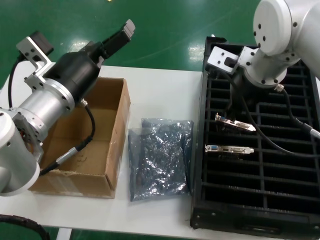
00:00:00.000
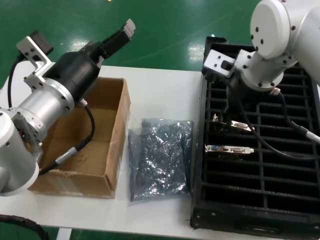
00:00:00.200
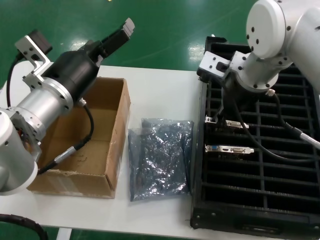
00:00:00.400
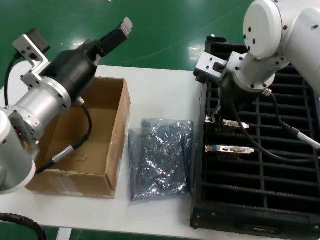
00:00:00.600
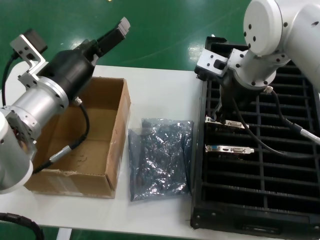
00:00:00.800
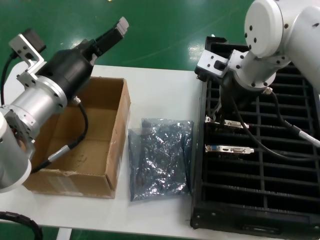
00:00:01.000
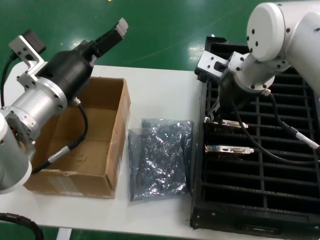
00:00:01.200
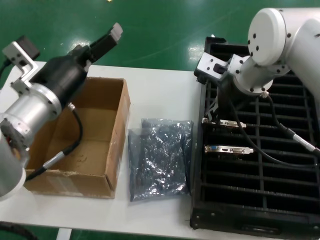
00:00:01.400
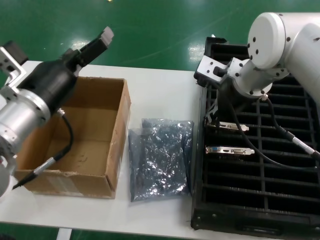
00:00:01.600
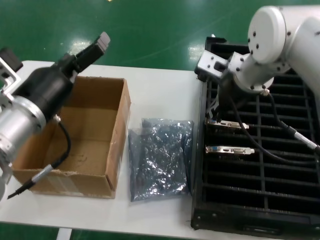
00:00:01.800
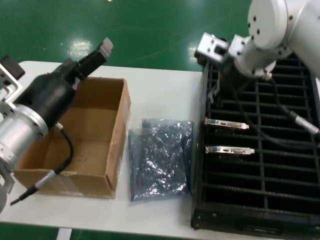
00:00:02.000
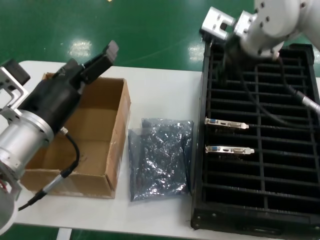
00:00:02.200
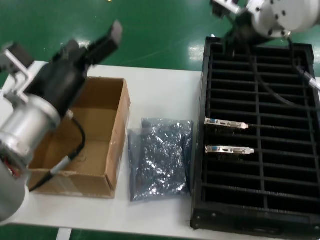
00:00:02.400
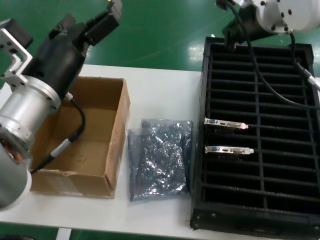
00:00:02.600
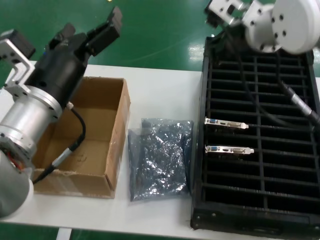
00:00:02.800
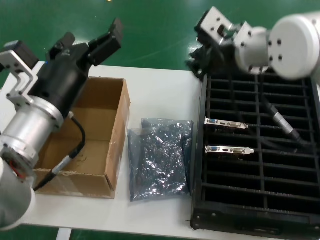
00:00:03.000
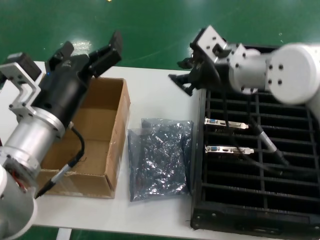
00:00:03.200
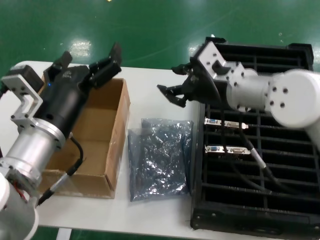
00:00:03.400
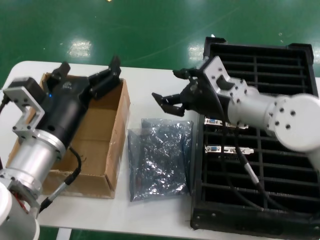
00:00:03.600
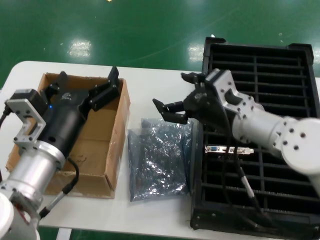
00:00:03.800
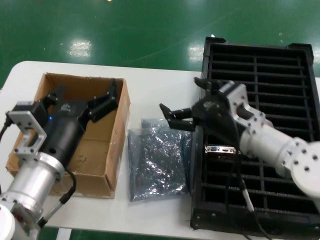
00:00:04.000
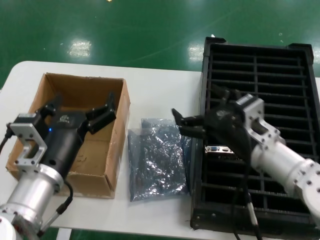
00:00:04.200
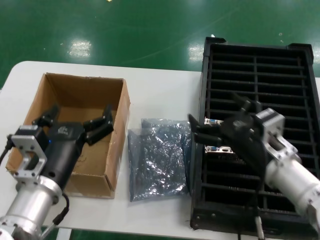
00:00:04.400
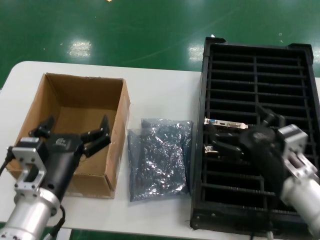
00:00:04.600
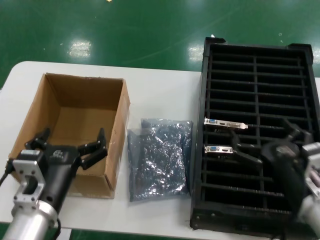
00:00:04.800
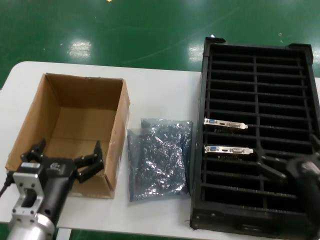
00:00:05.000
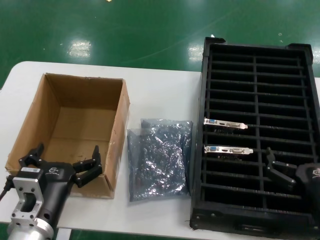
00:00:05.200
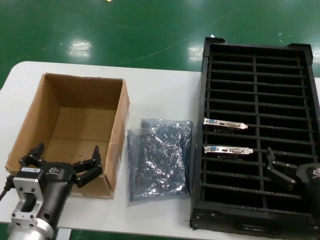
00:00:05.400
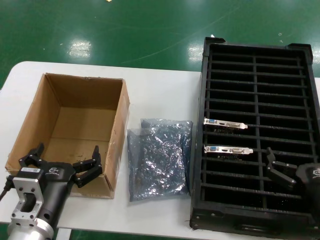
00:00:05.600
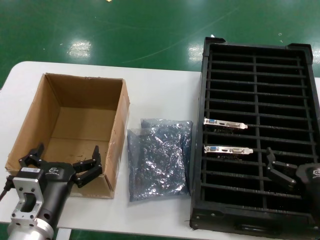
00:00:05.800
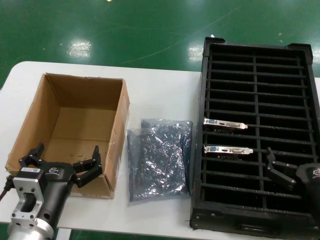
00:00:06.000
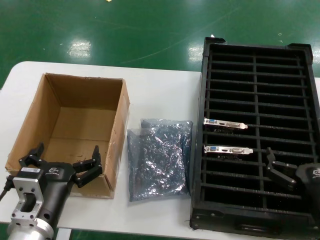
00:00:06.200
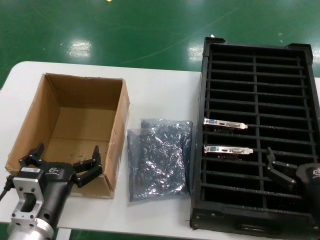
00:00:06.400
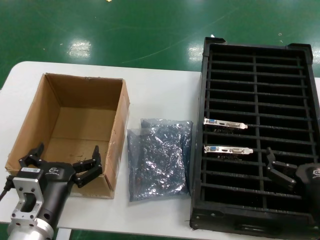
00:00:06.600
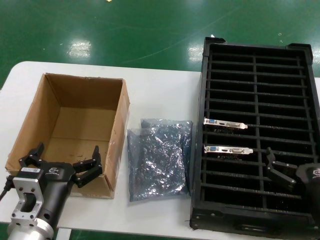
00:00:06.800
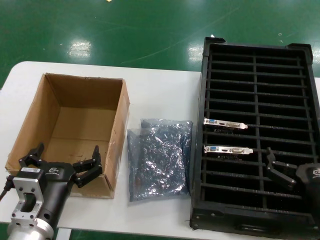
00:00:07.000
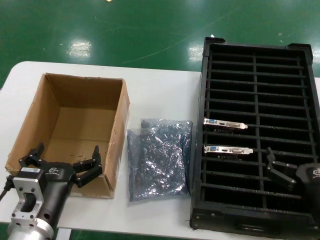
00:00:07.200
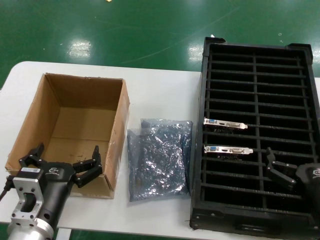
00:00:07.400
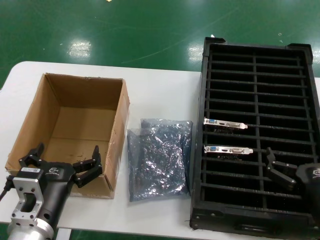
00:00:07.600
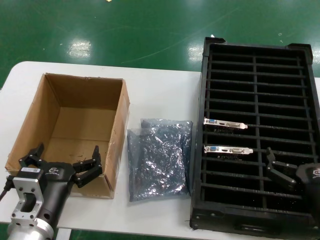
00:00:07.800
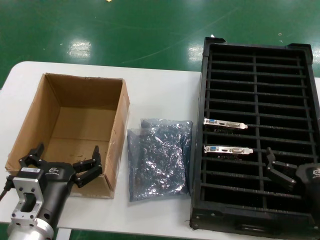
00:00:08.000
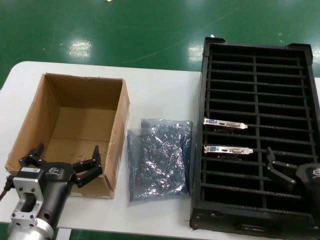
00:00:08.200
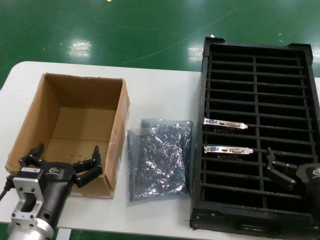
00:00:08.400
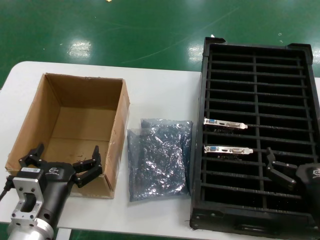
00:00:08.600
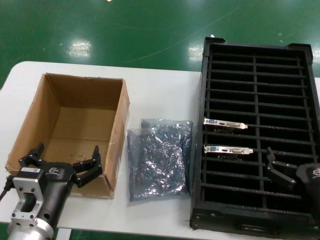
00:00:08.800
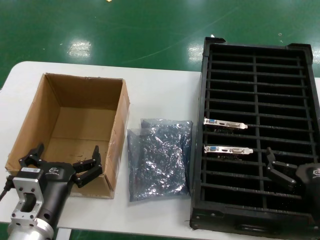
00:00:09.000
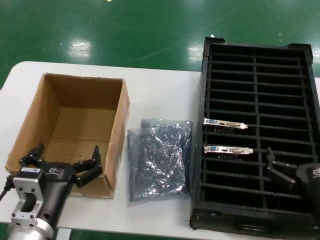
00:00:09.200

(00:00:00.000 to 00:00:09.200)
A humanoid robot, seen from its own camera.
Task of the whole recording: take out graphics card from box remove packaging put into black container.
Step, 00:00:00.000 - 00:00:03.200: Place the hard disk in the hard disk enclosure.
00:00:03.000 - 00:00:04.600: The right hand moves downward and backward, approximately 25 cm; the left hand moves downward and backward, about 15 cm.
00:00:04.600 - 00:00:06.200: The right hand is displaced backward and to the right by roughly 10 cm.
00:00:06.200 - 00:00:09.200: The two hands keep their place.
